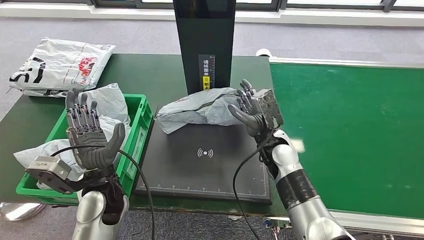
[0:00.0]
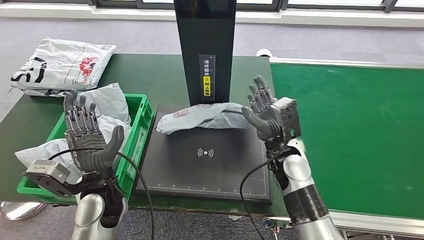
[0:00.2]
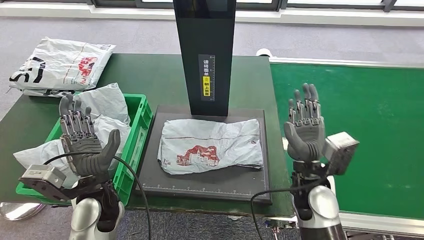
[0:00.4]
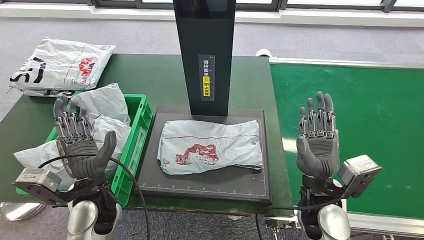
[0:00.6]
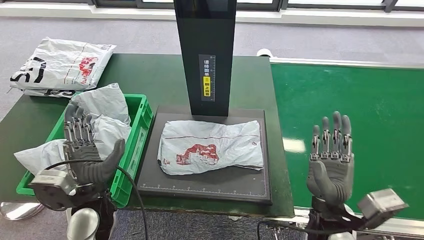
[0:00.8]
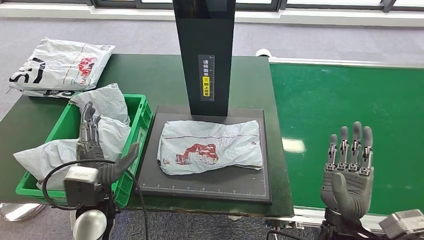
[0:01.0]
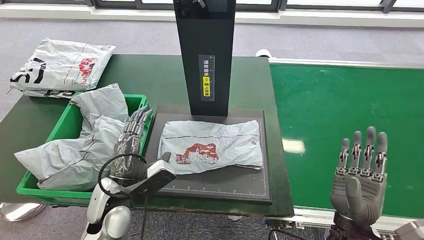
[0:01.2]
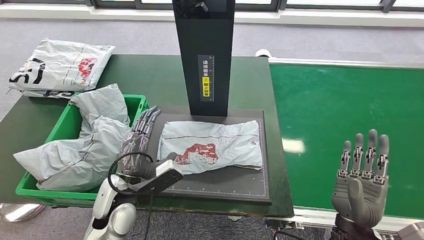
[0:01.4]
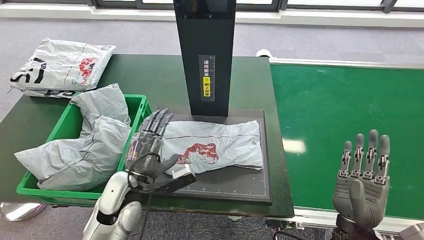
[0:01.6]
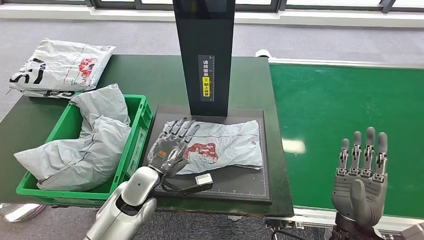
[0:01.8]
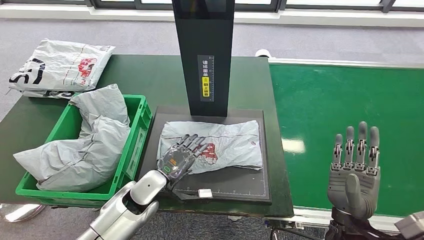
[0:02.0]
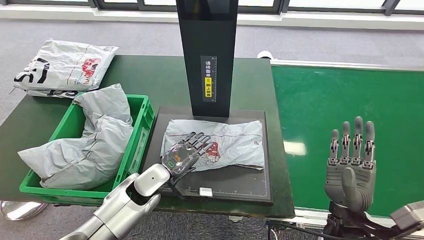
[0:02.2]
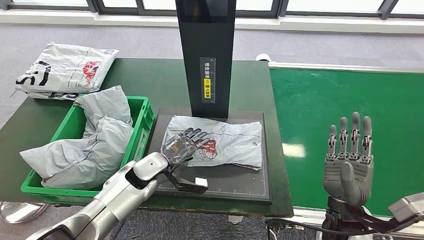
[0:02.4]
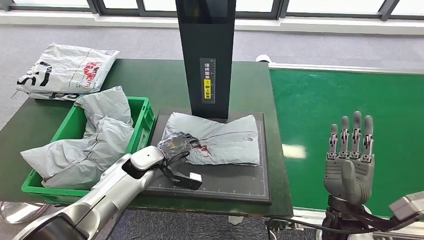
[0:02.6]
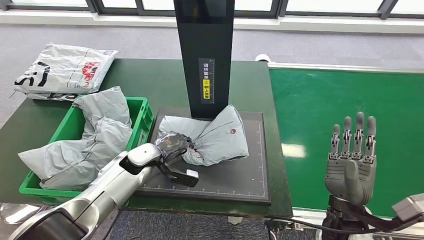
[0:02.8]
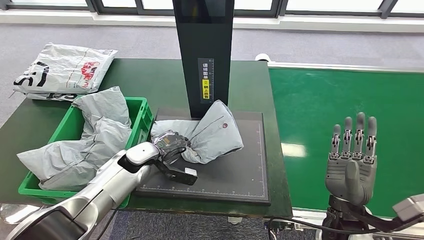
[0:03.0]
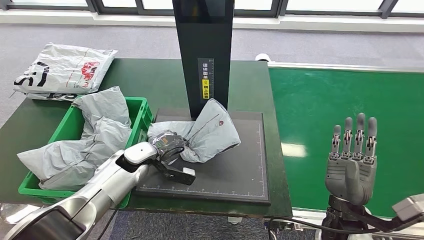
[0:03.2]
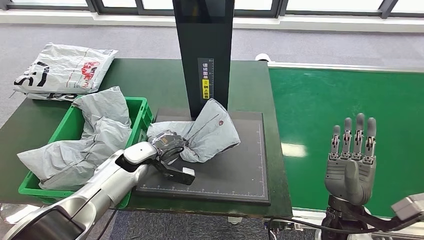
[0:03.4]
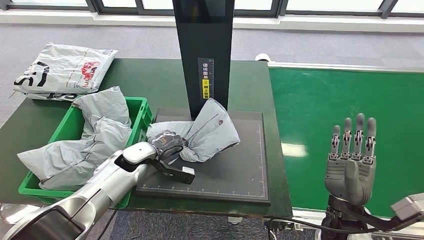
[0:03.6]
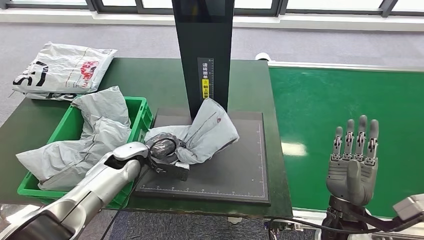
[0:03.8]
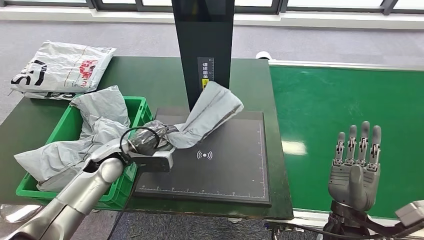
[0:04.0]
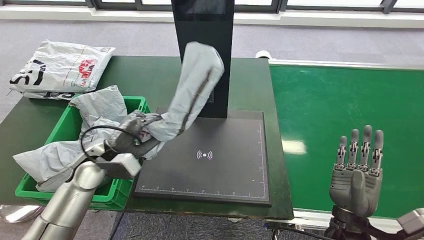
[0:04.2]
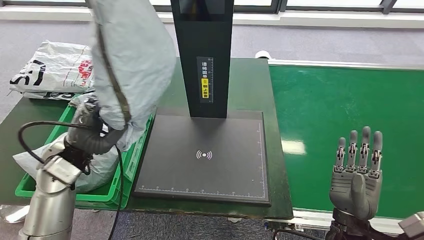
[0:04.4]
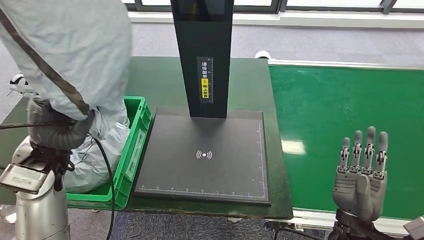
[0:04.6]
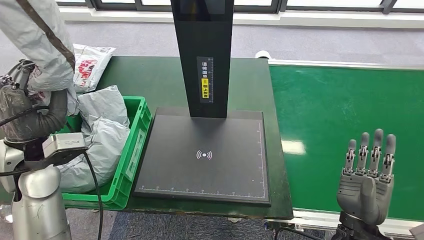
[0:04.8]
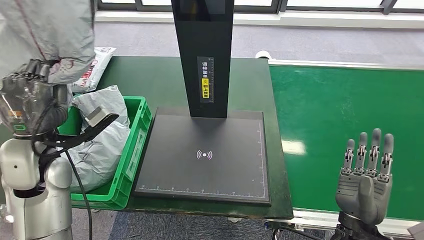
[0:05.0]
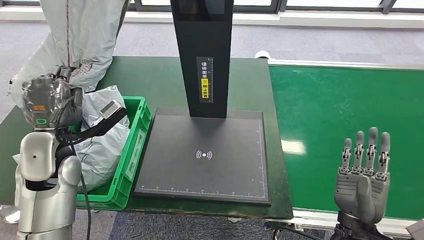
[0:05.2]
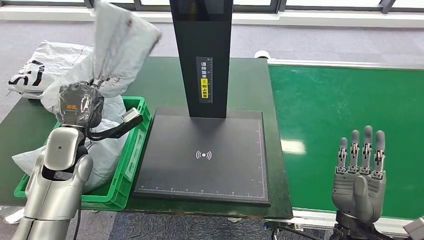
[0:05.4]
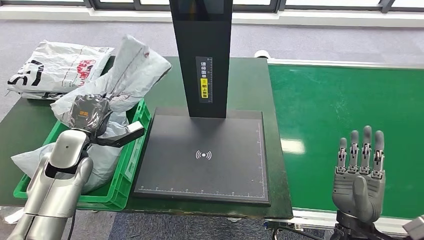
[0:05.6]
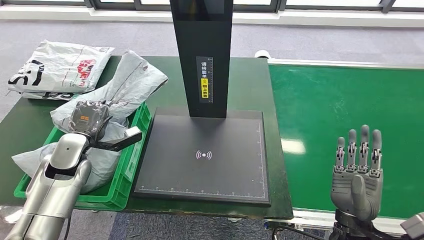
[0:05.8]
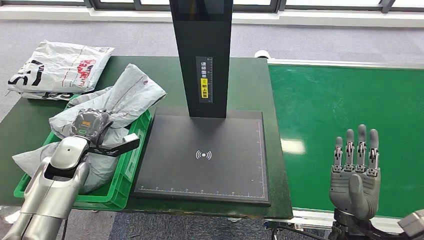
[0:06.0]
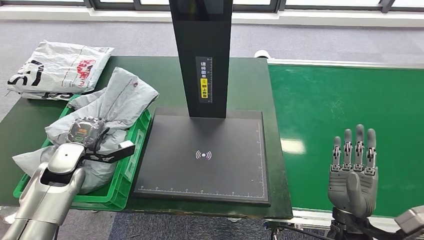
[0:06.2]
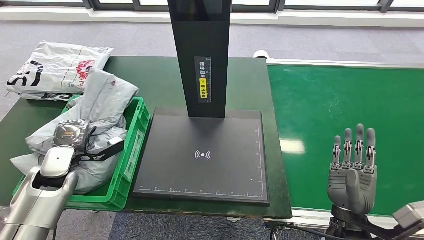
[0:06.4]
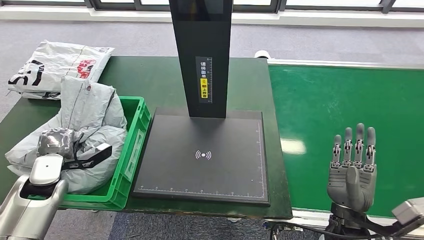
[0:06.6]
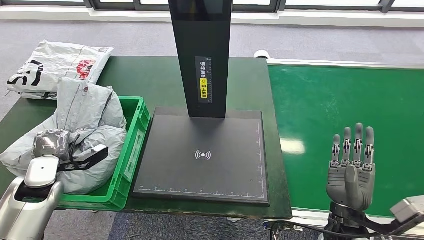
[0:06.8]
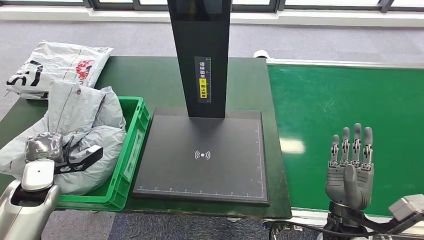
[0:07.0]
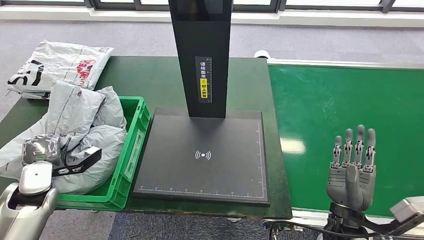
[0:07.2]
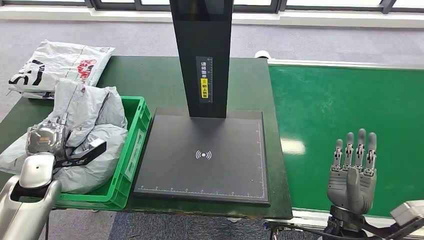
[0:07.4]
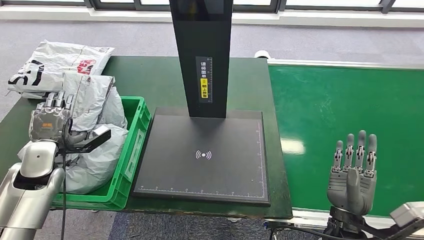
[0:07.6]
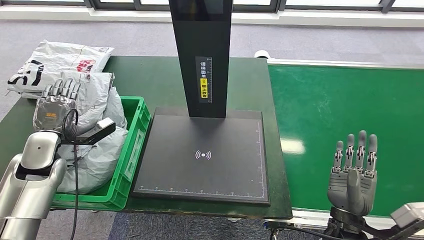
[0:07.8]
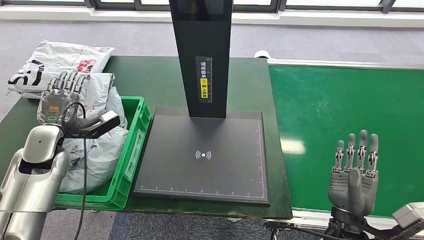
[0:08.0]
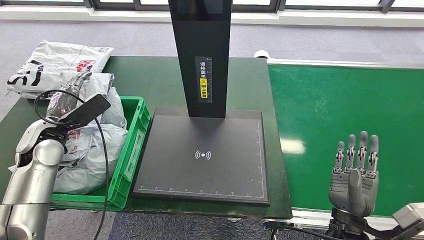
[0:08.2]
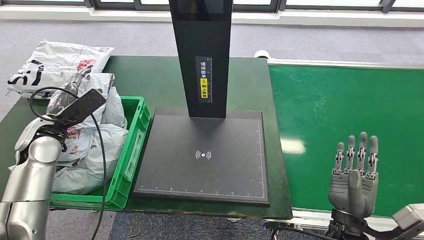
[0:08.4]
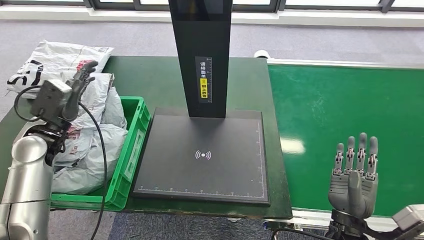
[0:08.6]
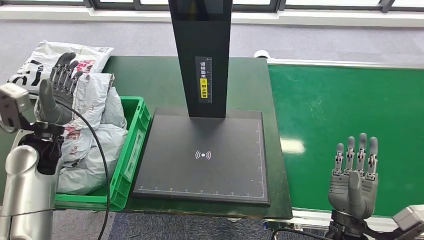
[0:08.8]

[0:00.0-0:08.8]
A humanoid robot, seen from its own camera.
Step, 0:01.6 to 0:04.8: Pick up the parcel from the inbound machine.
Step, 0:05.2 to 0:08.8: Place the parcel into the delivery box.
0:04.4 to 0:05.8: The left hand goes roughly 5 cm to the left, and moves approximately 5 cm upward and comes back.
0:05.8 to 0:07.4: The left hand travels to the left and backward by about 10 cm.
0:07.4 to 0:08.8: The left hand travels upward by some 5 cm.

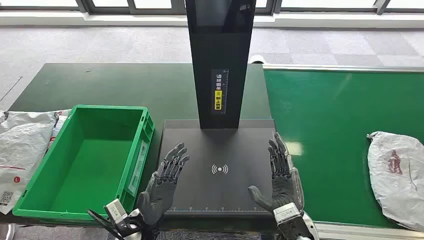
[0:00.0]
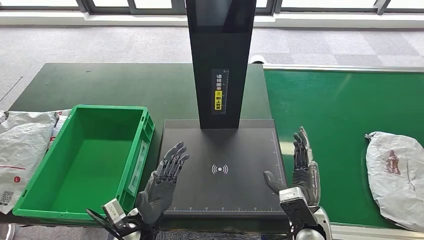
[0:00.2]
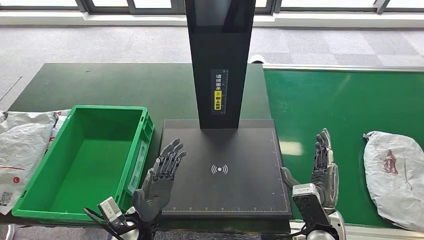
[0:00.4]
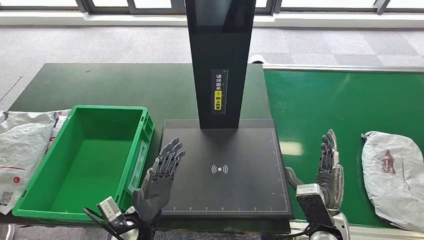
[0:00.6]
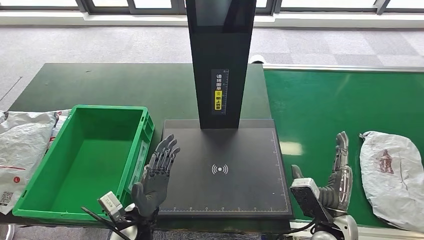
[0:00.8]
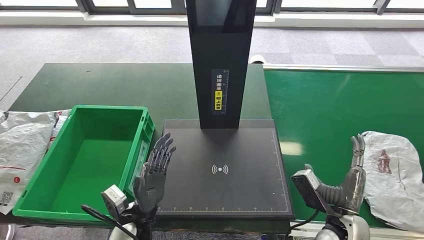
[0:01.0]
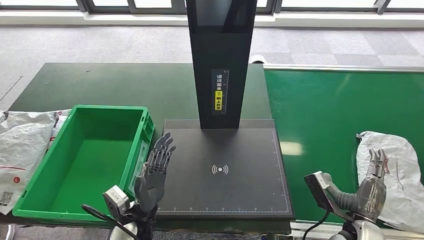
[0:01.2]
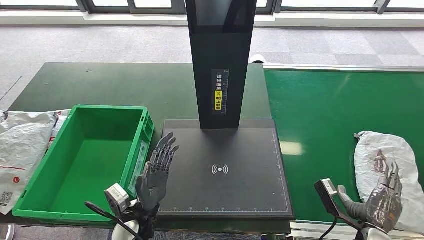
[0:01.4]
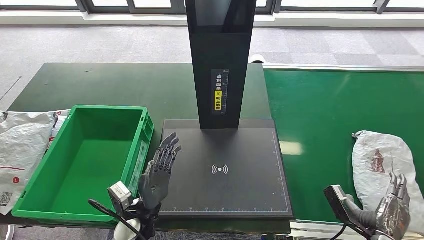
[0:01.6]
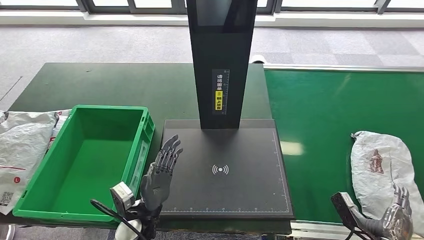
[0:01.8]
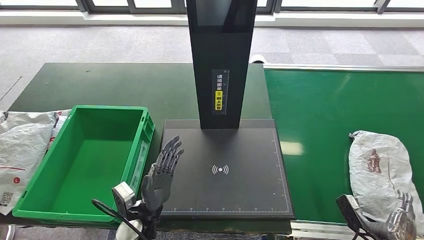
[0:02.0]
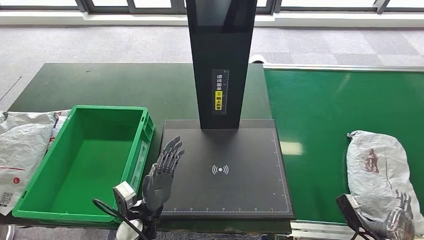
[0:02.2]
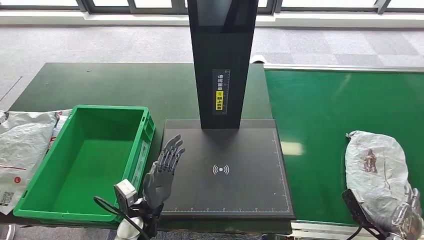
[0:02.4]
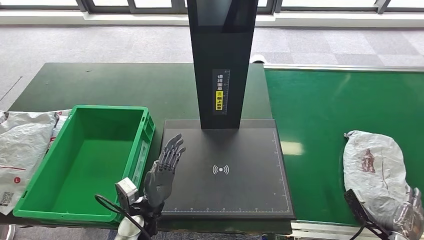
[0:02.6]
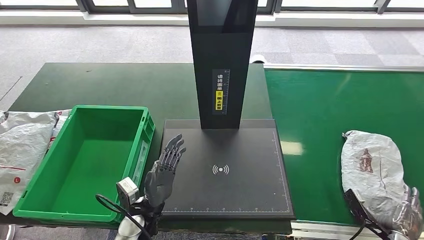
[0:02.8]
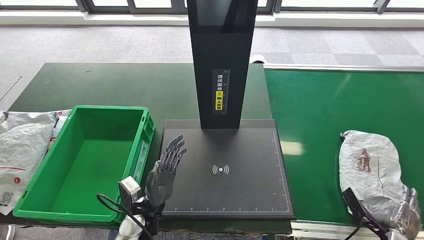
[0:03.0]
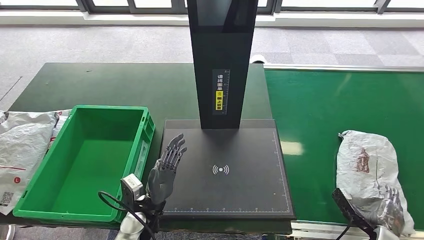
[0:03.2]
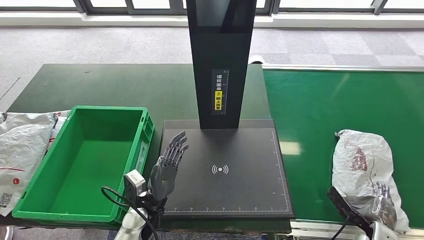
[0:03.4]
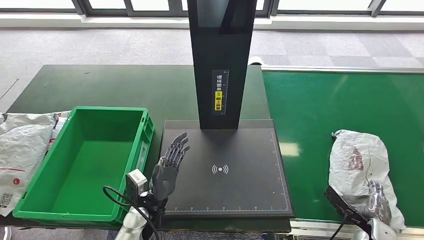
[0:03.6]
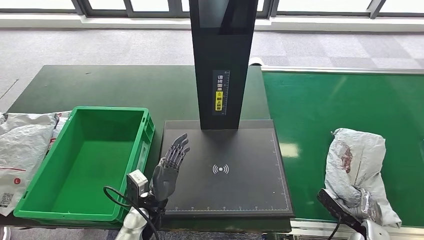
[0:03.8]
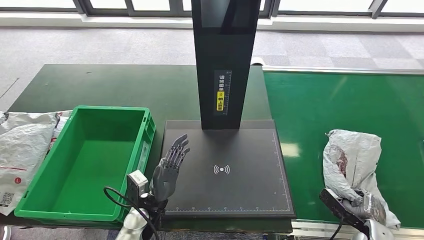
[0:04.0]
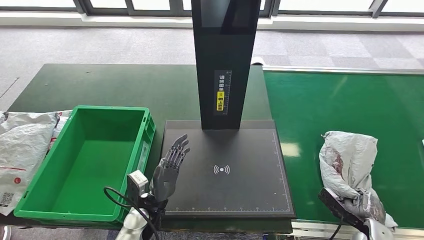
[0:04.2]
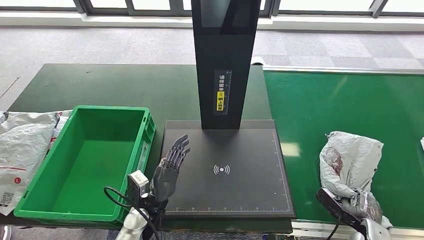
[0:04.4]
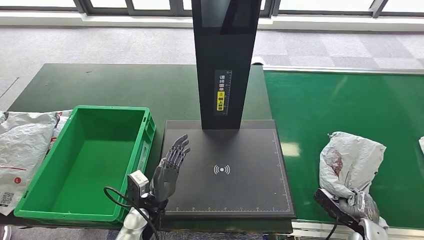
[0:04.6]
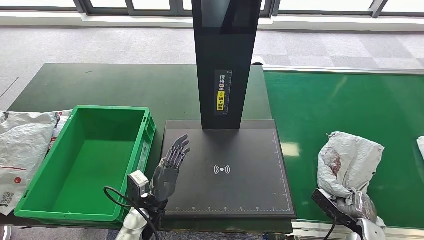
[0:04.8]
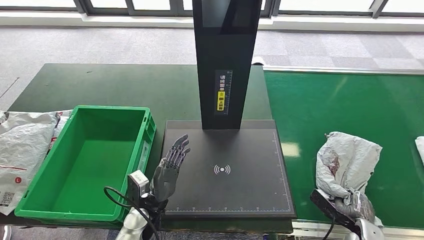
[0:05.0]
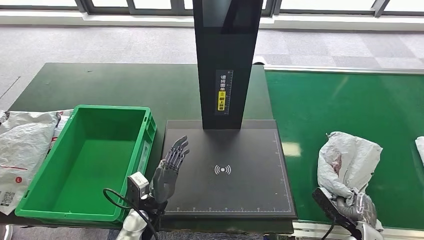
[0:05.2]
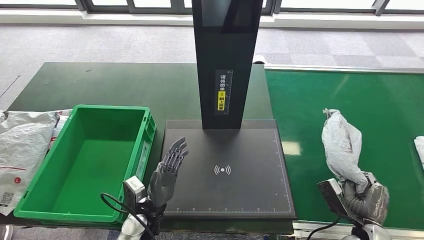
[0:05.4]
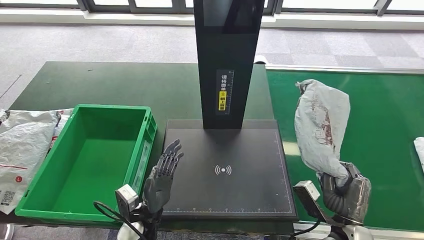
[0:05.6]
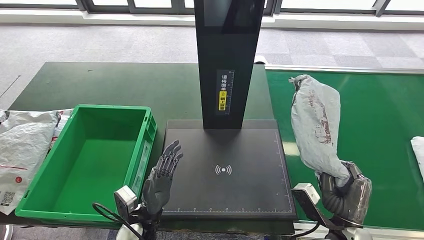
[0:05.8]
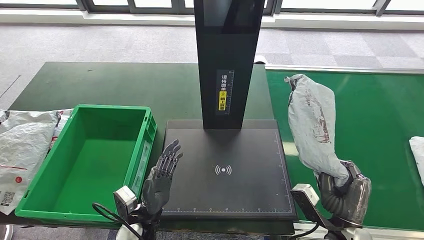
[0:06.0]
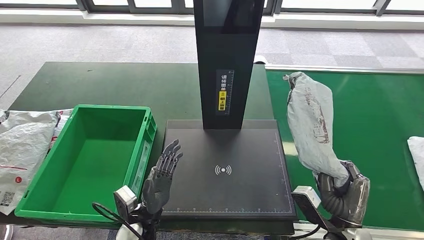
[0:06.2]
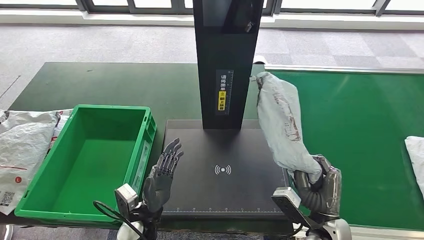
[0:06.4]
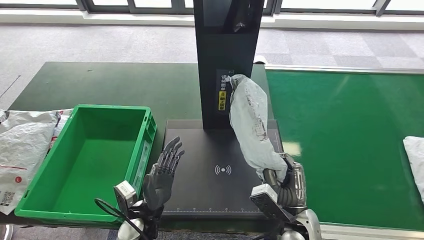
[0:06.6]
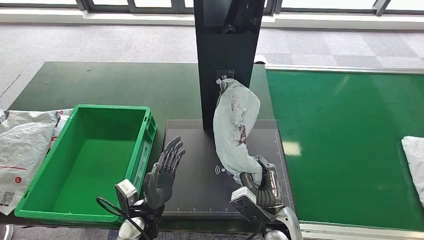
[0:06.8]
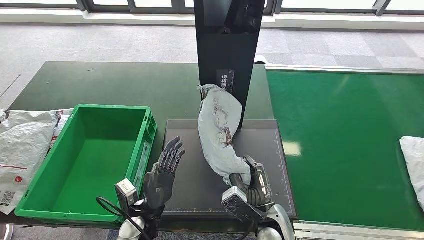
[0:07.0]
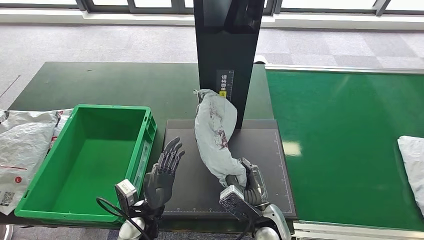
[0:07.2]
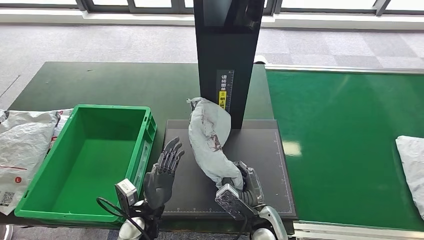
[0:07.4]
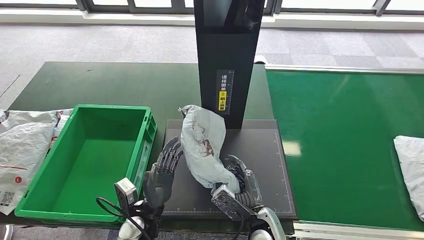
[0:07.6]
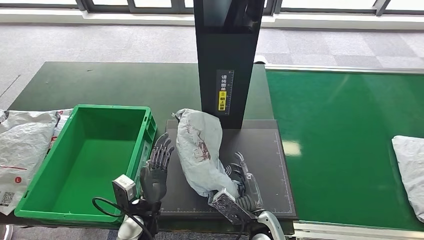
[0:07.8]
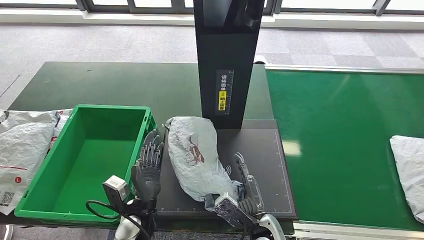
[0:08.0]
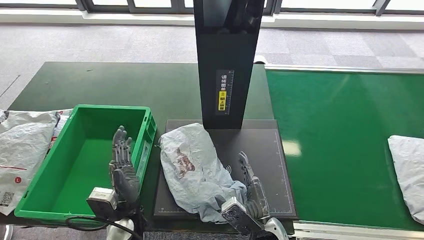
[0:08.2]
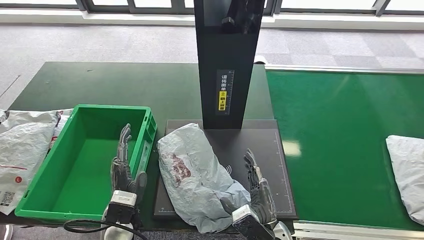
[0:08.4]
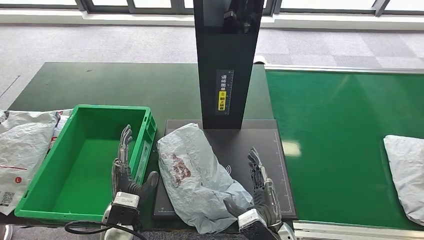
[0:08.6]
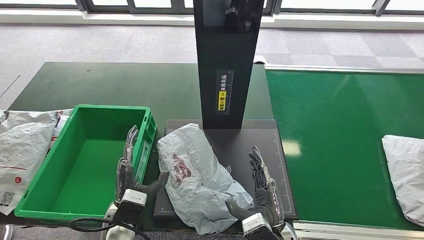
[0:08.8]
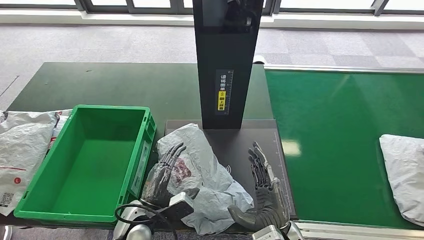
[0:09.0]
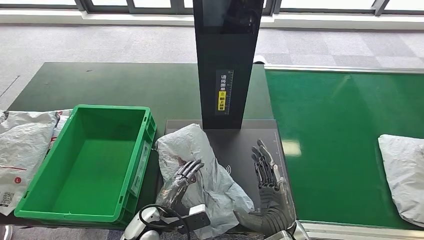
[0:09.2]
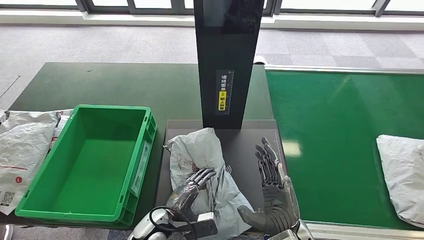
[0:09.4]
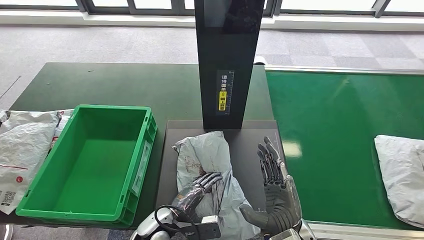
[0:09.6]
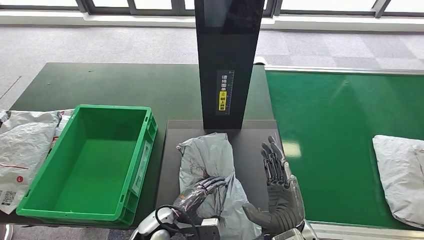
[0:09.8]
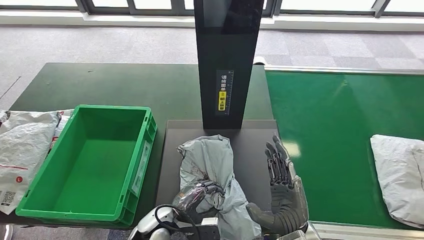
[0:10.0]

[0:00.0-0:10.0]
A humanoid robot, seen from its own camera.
Step, 0:00.0 to 0:05.6: Take the parcel off the conveyor belt.
Step, 0:06.6 to 0:09.6: Place the parcel onto the inbound machine.
0:01.4 to 0:02.8: The right hand travels to the right and downward by roughly 10 cm.
0:05.8 to 0:07.2: The right hand moves to the left, some 15 cm.
0:07.2 to 0:08.6: The left hand moves some 5 cm.
